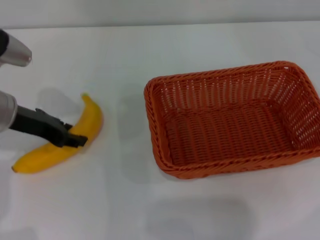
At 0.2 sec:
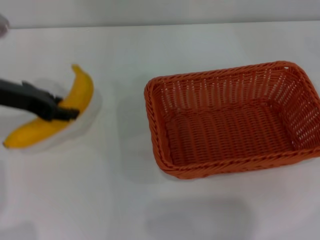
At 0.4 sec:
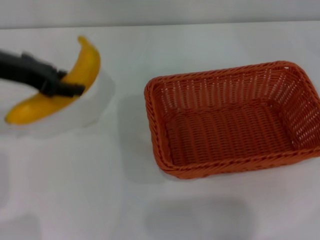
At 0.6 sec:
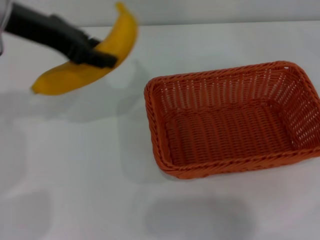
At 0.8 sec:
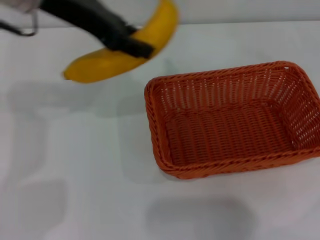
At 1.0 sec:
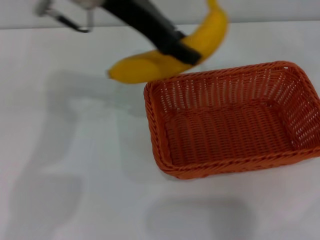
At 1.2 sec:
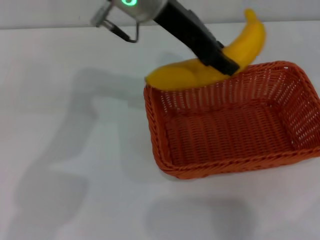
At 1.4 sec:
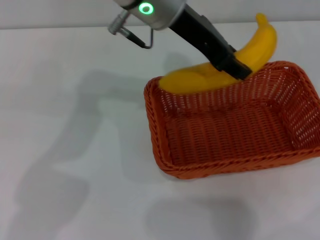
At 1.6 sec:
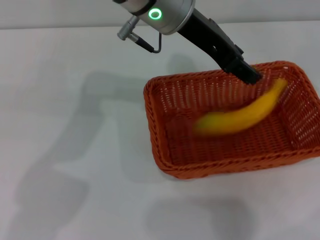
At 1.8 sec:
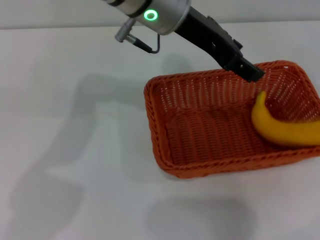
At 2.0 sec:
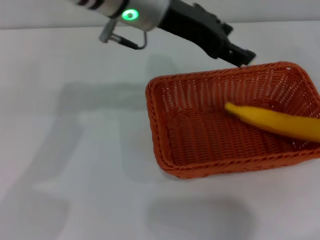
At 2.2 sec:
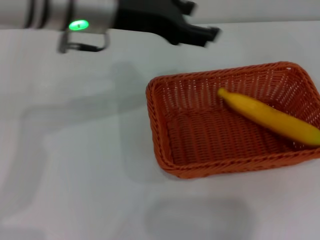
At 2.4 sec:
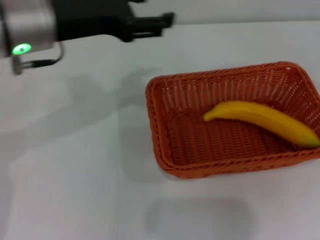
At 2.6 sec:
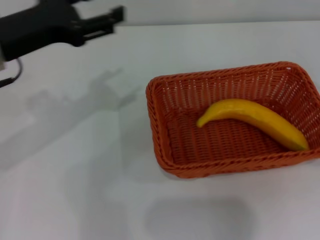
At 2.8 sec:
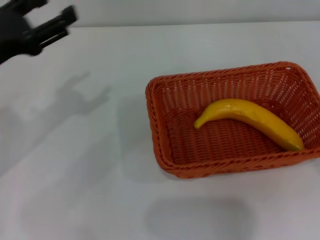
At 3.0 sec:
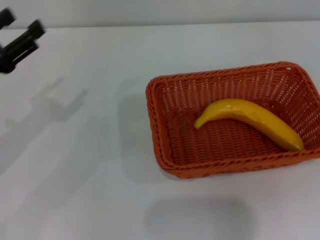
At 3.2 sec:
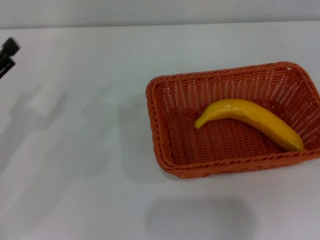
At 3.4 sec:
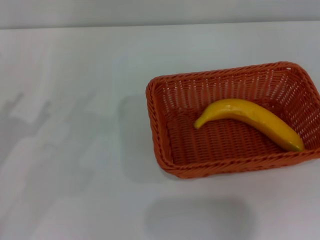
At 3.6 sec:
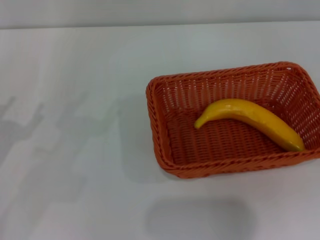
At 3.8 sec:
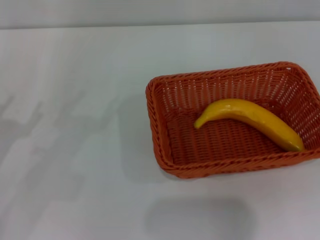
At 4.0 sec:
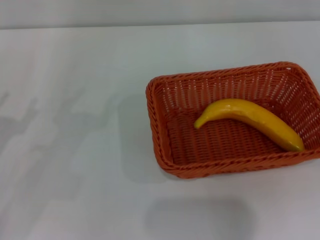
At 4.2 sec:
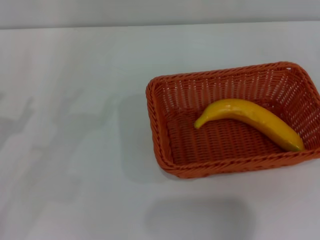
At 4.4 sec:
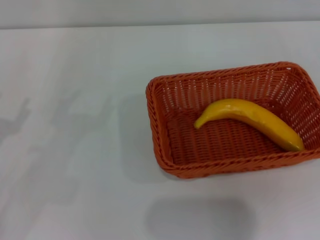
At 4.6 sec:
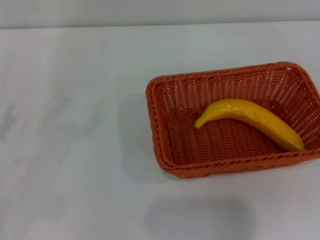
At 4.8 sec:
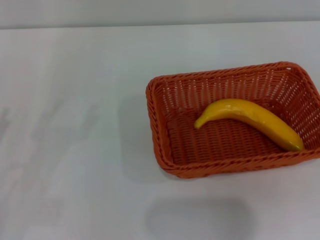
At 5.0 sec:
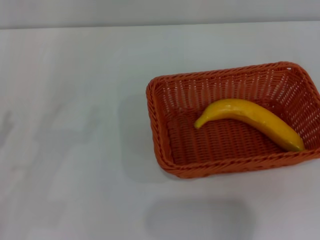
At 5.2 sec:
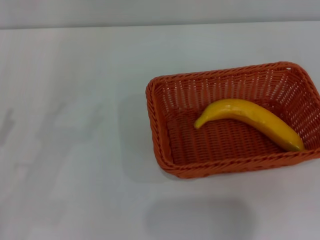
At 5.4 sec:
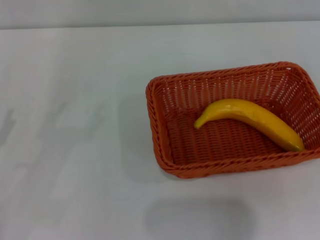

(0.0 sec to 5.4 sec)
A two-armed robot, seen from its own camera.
Step, 0.6 sec - 2.0 sec: Place the banana into the light basket with the left gripper.
0.0 sec - 1.4 sec: The left gripper moves to the right and upward, roughly 25 cm.
1.4 sec - 2.8 sec: The right gripper is displaced backward and downward by about 10 cm. Meanwhile the left gripper heads to the left, covering about 25 cm, and opens up.
2.8 sec - 4.0 sec: The left gripper travels downward, backward and to the left by some 15 cm.
